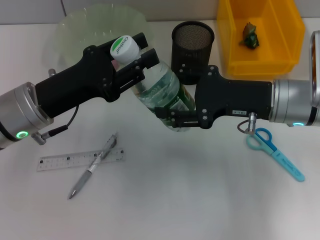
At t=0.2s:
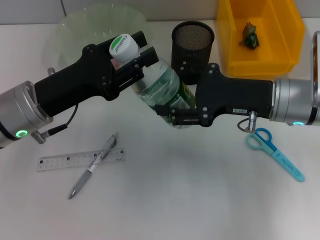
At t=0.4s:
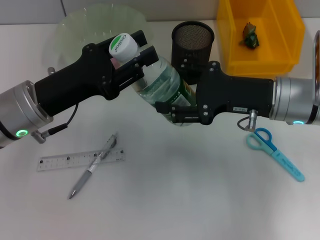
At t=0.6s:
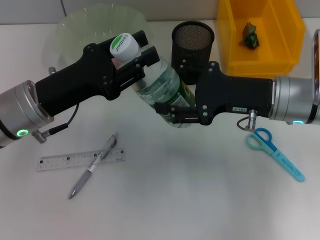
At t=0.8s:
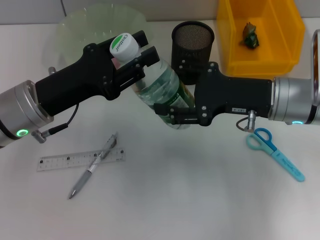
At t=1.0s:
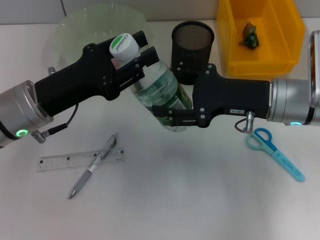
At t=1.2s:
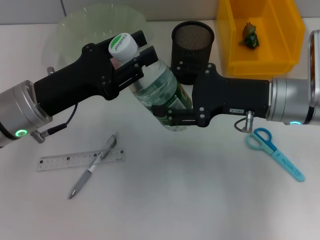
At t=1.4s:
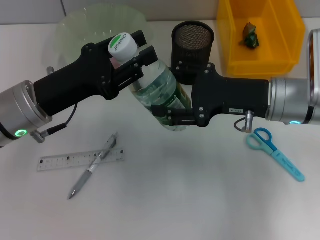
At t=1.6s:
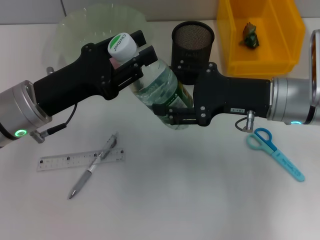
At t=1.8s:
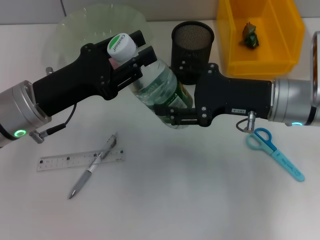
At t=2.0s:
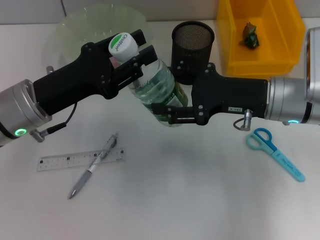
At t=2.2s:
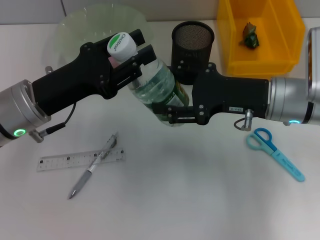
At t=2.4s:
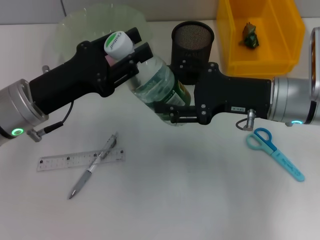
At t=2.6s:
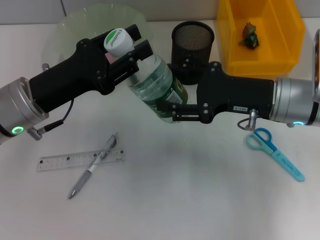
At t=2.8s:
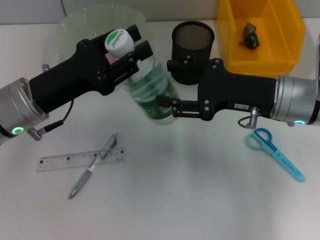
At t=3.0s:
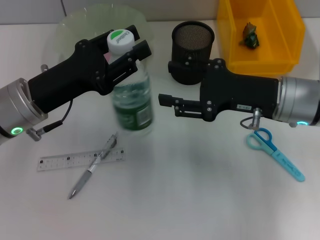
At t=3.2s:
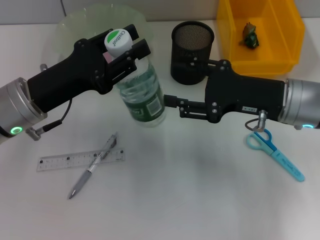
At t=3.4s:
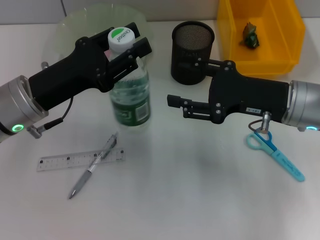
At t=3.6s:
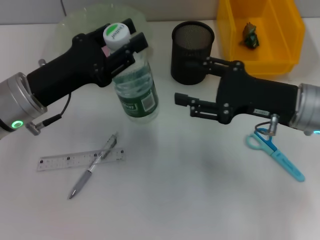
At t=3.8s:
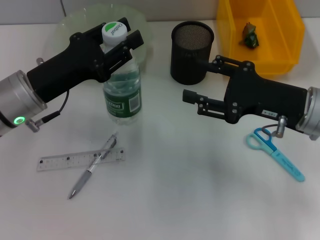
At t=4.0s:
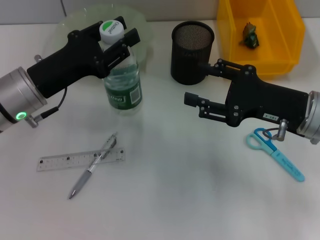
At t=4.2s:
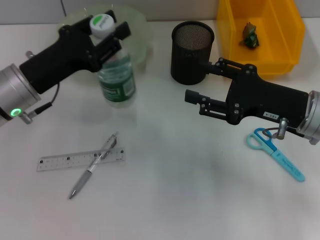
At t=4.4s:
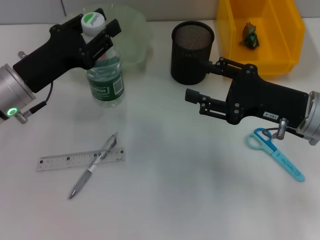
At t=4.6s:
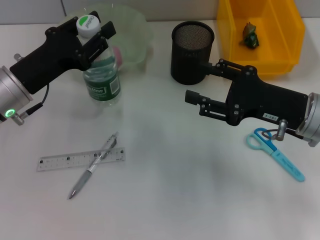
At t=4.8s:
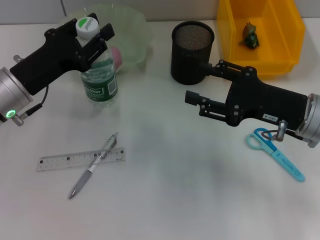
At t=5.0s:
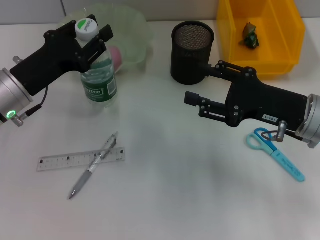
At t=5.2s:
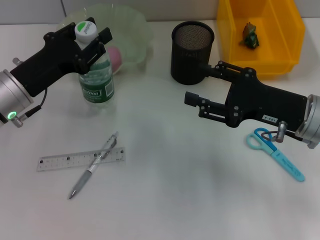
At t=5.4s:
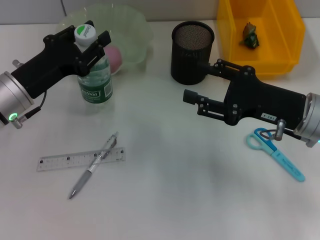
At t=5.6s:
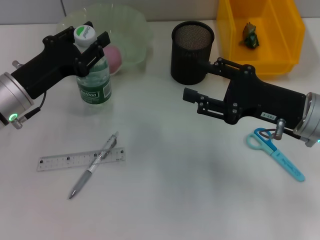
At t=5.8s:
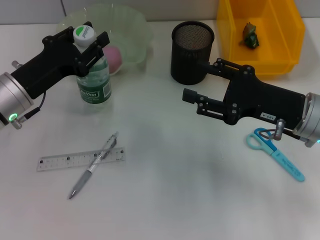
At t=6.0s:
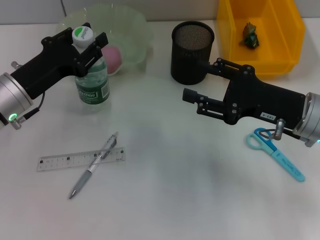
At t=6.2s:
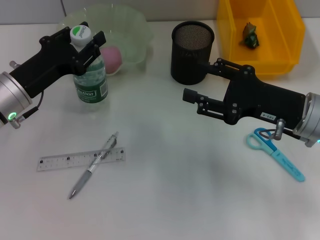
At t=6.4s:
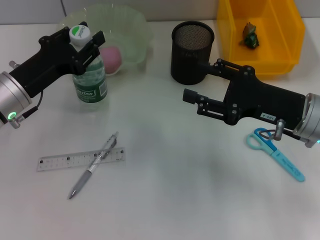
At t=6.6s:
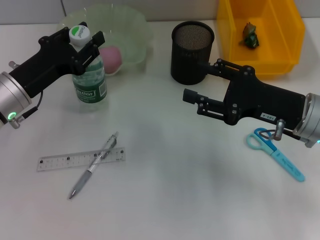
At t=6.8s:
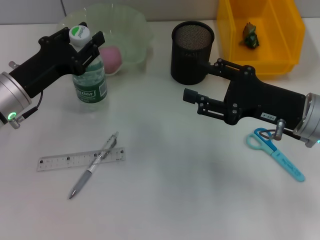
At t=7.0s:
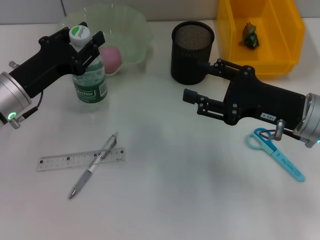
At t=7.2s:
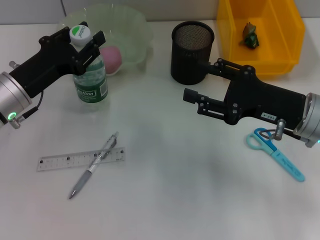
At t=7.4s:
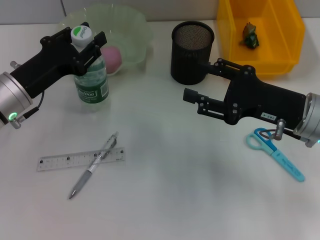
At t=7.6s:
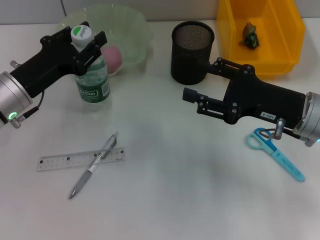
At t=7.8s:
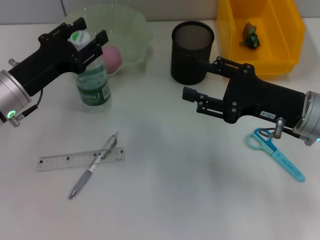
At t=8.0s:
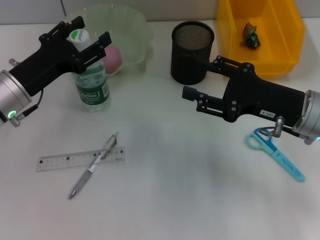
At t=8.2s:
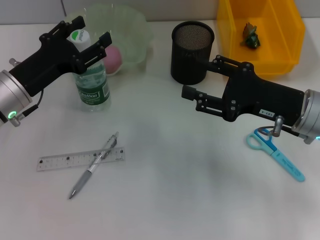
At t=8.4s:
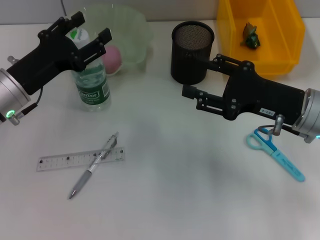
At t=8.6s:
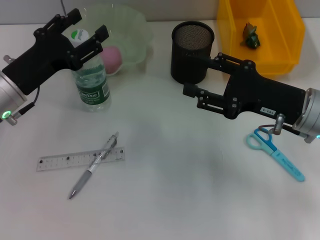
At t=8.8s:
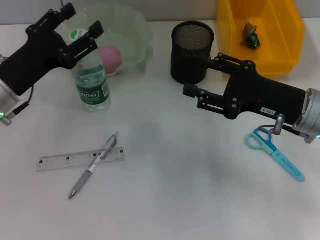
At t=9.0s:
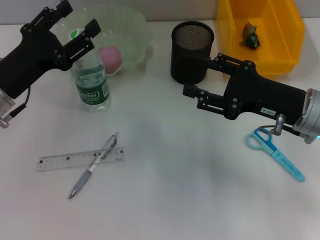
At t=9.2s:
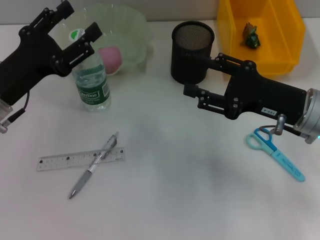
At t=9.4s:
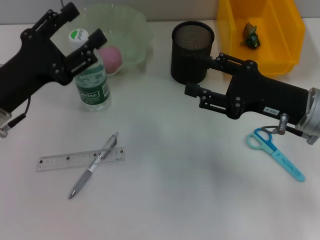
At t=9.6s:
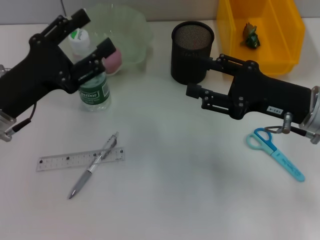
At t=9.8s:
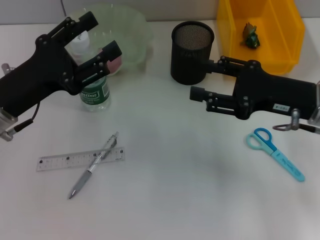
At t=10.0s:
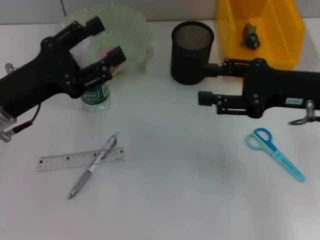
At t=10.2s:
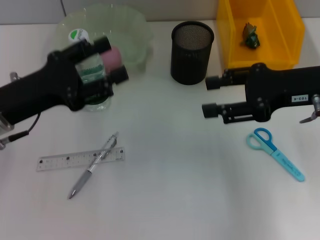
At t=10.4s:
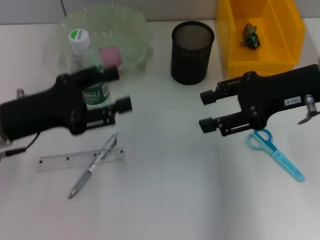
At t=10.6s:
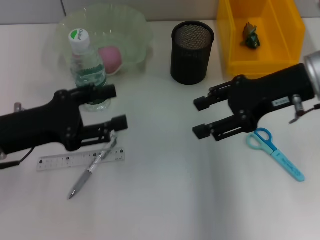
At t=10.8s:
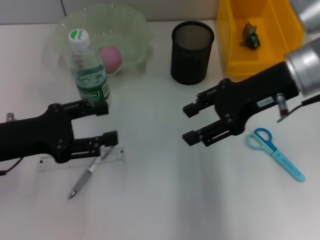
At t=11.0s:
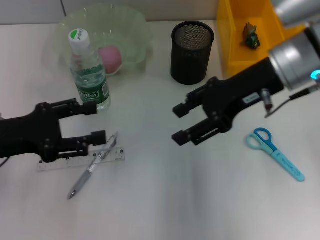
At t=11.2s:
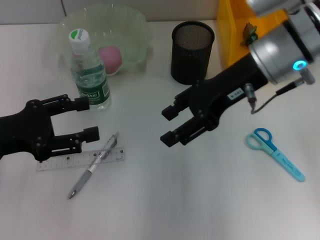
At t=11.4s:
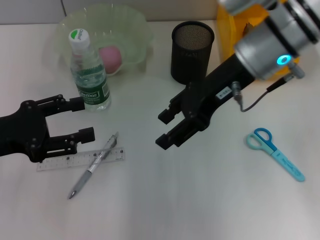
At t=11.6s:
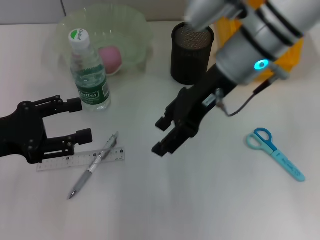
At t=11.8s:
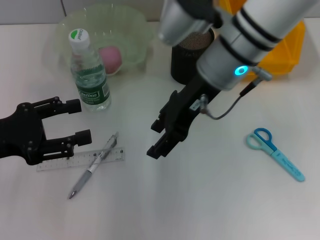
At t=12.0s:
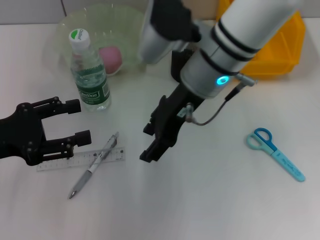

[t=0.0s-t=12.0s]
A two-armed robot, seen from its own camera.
Step, t=0.0s to t=3.0s: Pass the water bottle from the right hand to the left hand.
Step, t=3.4s to t=8.4s: Place the water bottle on the table with the left hand.
t=0.0s to t=1.6s: Both grippers stay put.
t=1.6s to t=3.0s: Both grippers stay about where they are.
t=4.4s to t=6.0s: The grippers make only small movements.
t=6.0s to t=7.6s: Neither gripper changes place.
t=7.6s to t=9.0s: The left gripper opens up.
t=9.0s to t=10.4s: The right gripper moves upward, about 10 cm.
t=10.4s to t=12.0s: The right gripper goes some 15 cm to the left. The left gripper shifts approximately 5 cm to the left.

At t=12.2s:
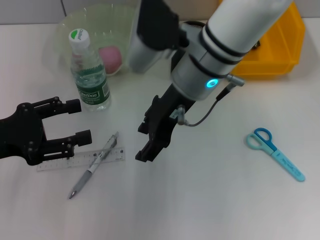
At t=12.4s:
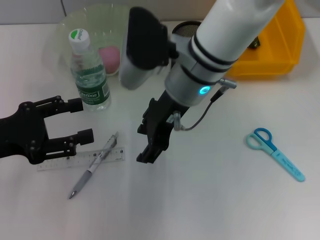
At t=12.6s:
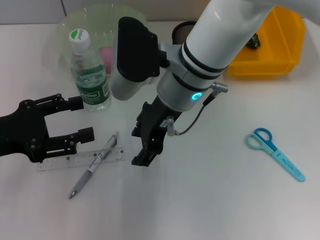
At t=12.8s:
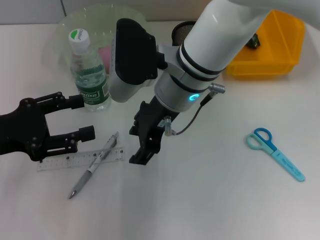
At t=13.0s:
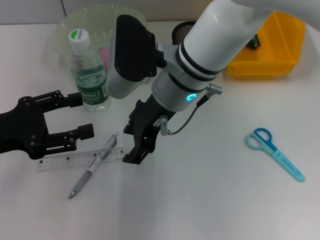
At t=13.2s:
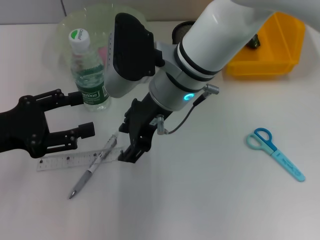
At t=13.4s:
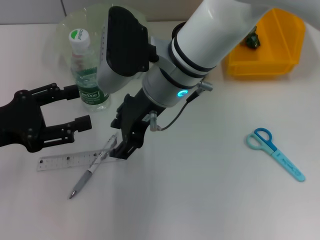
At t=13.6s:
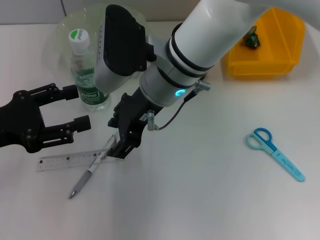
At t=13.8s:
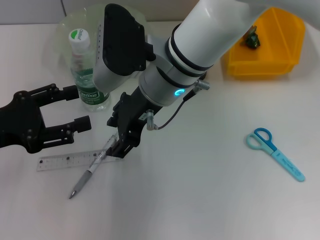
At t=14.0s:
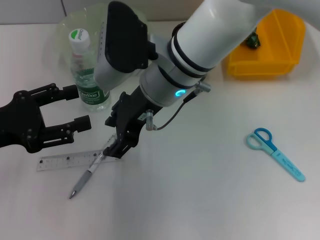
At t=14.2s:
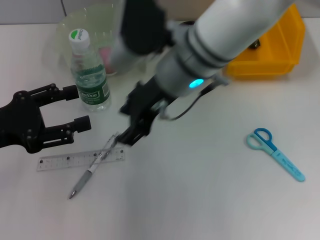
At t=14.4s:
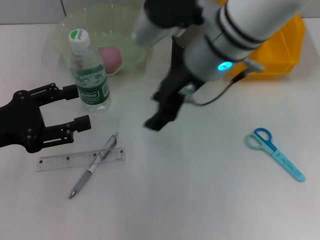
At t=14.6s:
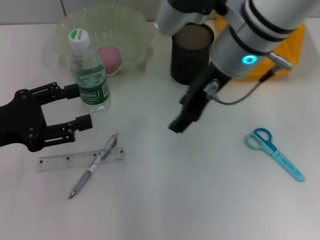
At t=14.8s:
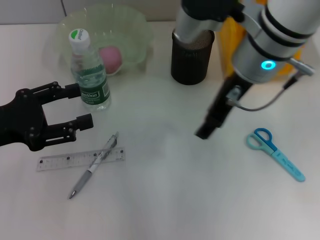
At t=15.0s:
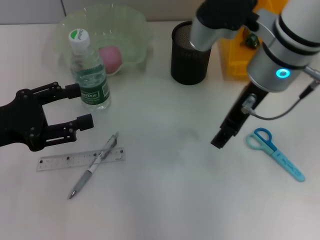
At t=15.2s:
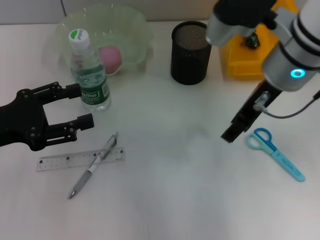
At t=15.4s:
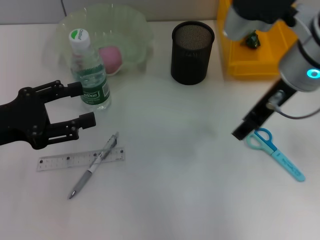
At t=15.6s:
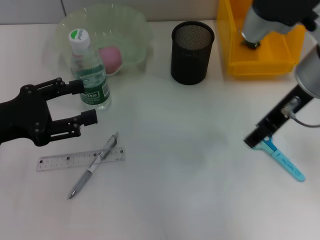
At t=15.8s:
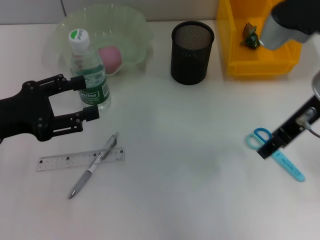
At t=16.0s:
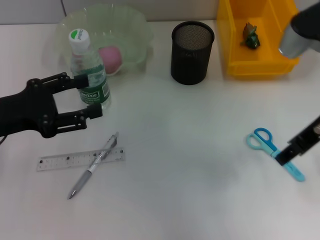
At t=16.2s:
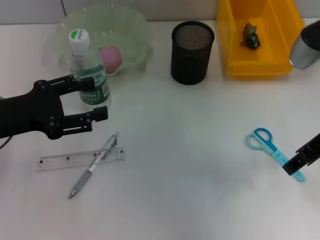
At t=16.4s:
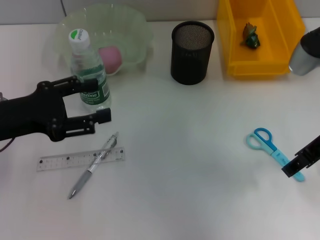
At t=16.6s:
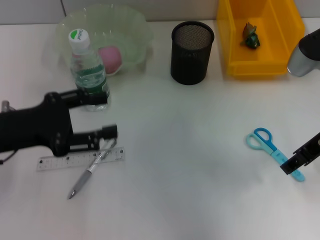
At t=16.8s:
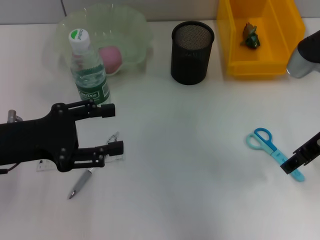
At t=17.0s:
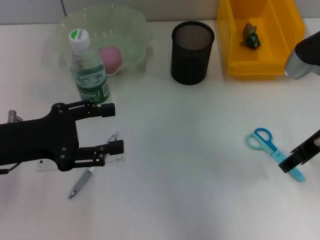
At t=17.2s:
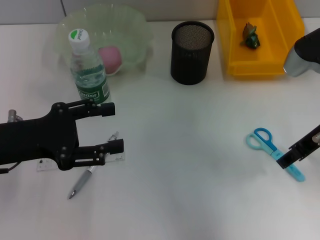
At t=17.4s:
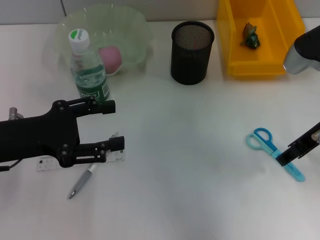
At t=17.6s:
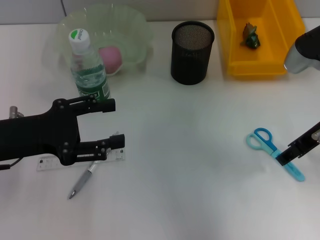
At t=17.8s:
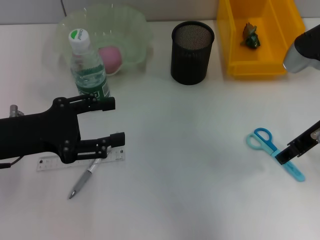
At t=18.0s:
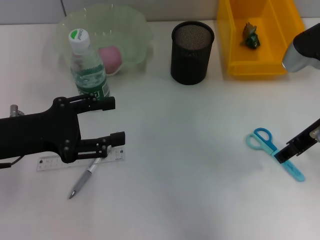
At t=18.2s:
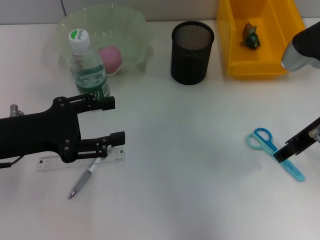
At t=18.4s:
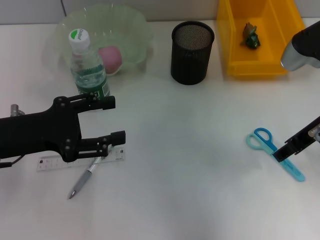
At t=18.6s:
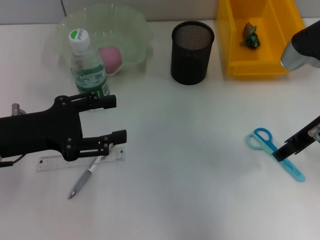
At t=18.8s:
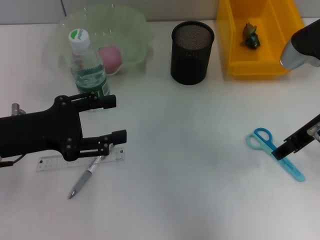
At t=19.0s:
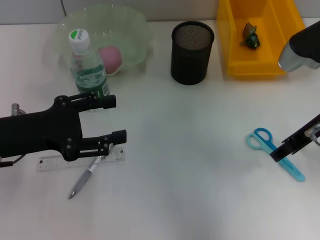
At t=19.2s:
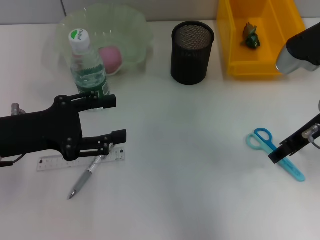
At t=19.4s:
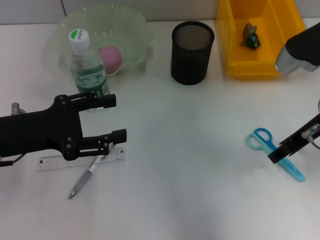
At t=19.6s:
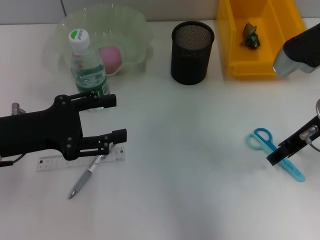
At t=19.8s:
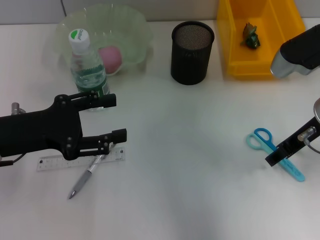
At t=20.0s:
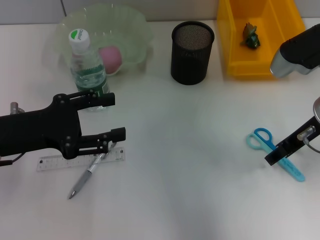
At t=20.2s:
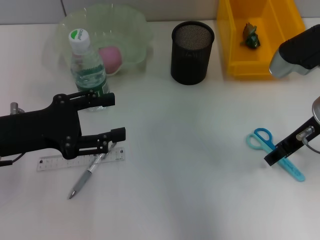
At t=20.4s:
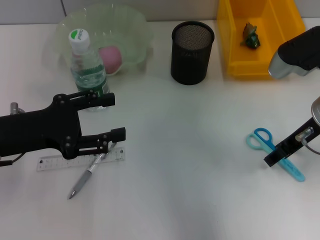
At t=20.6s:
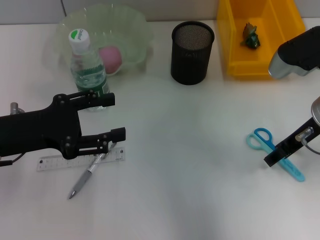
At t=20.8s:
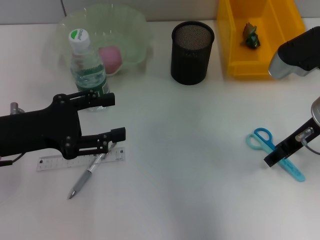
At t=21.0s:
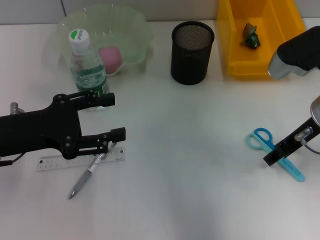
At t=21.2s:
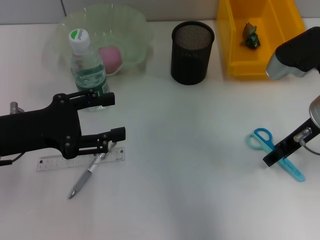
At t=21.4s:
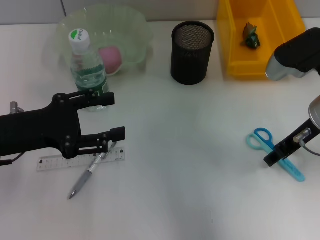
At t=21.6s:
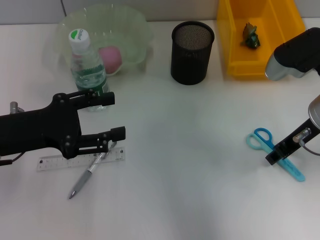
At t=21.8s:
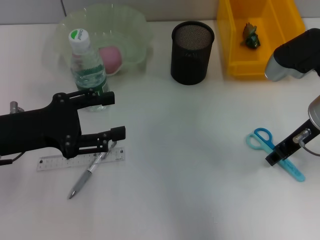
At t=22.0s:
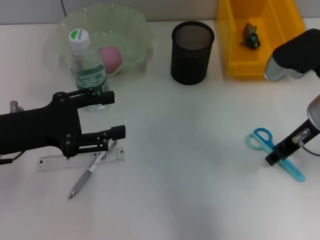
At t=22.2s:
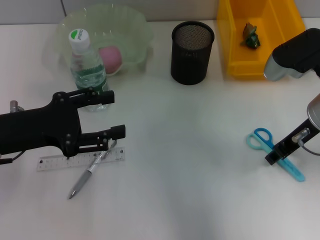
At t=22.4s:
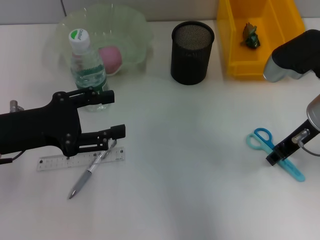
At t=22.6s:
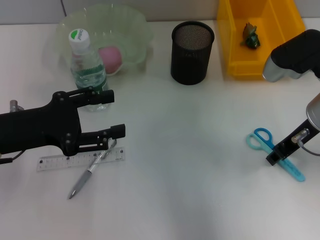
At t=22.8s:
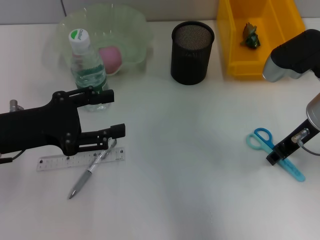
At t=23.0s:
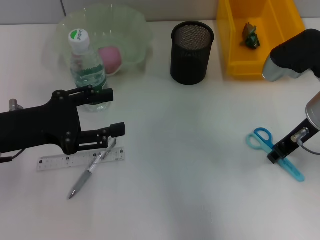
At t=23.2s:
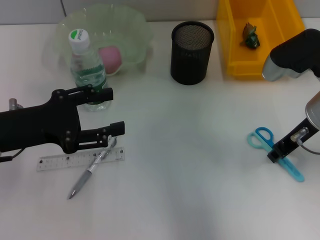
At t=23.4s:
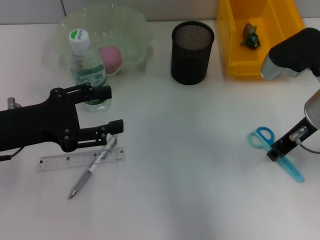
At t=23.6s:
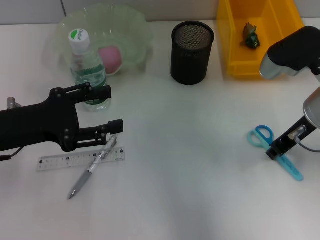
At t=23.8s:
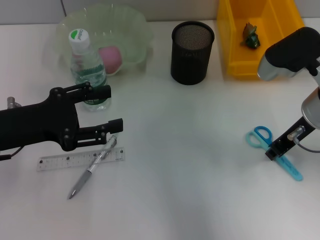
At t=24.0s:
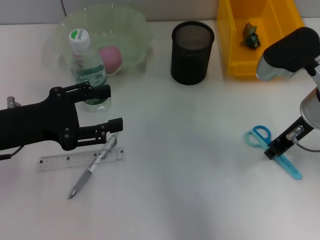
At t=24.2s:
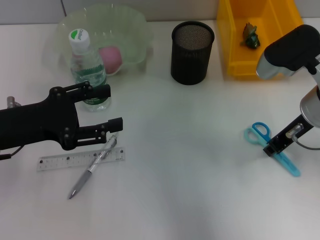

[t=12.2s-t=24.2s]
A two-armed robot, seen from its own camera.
t=13.8s to t=15.2s: The right gripper goes about 15 cm to the right.
t=15.2s to t=16.6s: The right gripper heads to the right, covering about 10 cm.
t=16.6s to t=19.8s: The grippers move only a little.
t=19.8s to t=22.6s: The two grippers keep their place.
t=22.6s to t=24.2s: The two grippers keep their place.
